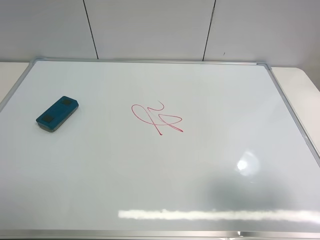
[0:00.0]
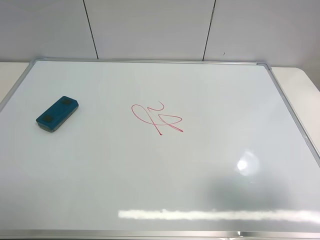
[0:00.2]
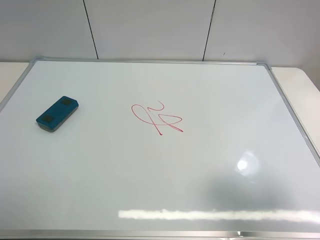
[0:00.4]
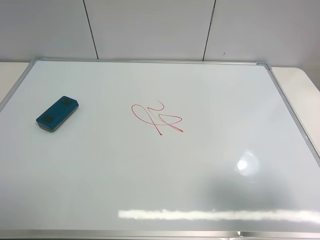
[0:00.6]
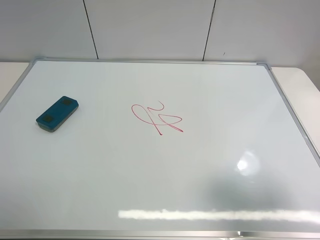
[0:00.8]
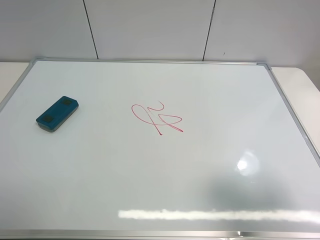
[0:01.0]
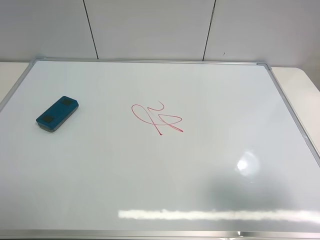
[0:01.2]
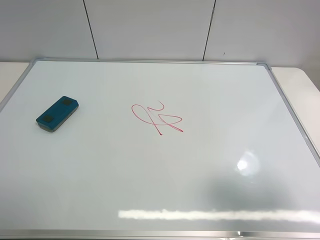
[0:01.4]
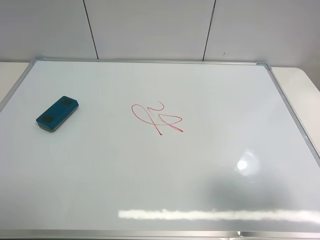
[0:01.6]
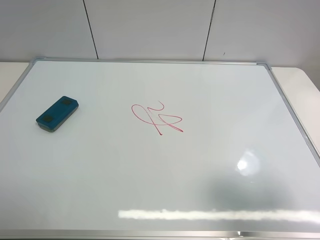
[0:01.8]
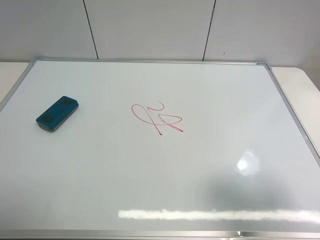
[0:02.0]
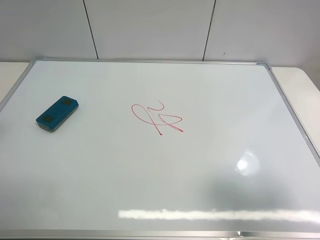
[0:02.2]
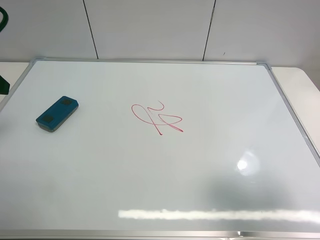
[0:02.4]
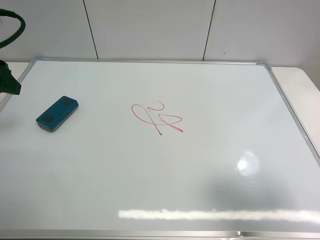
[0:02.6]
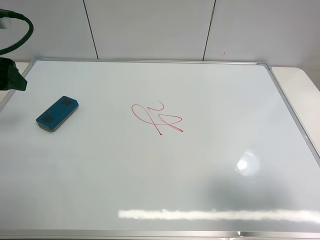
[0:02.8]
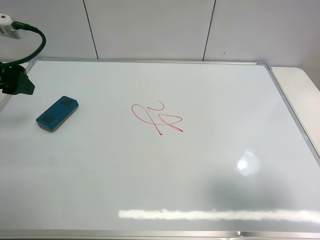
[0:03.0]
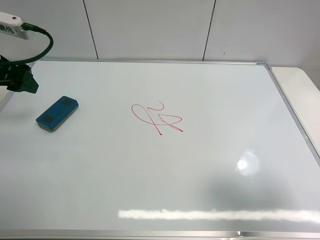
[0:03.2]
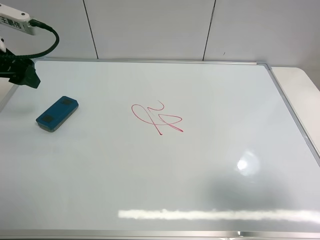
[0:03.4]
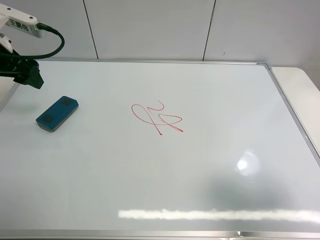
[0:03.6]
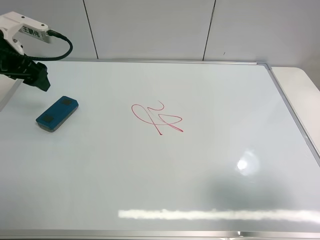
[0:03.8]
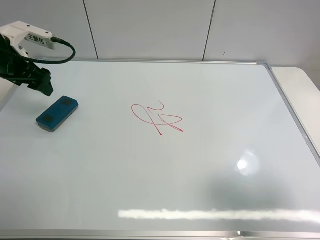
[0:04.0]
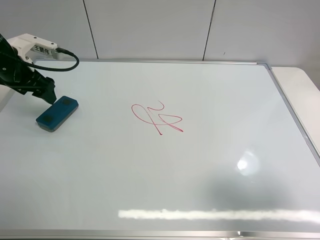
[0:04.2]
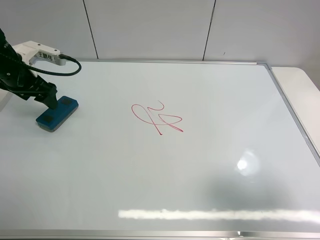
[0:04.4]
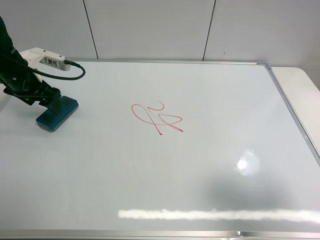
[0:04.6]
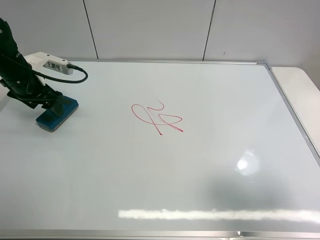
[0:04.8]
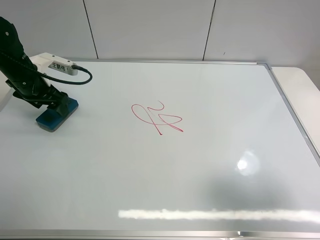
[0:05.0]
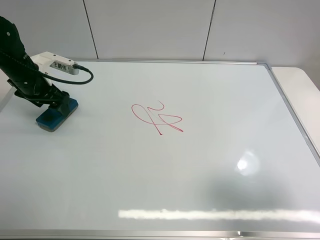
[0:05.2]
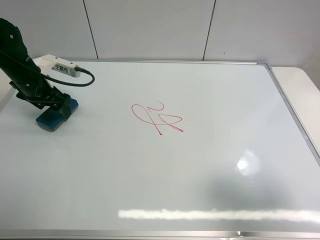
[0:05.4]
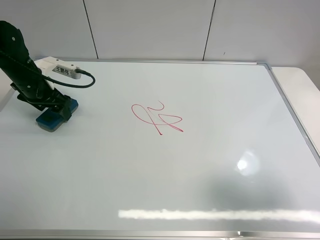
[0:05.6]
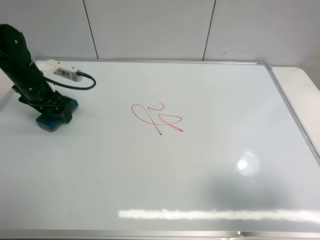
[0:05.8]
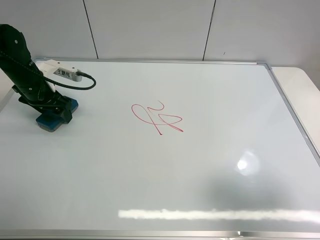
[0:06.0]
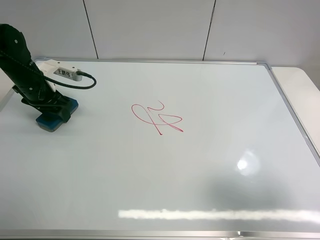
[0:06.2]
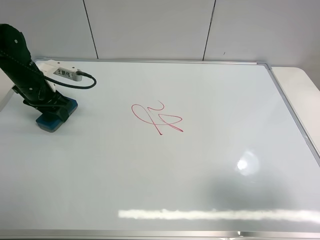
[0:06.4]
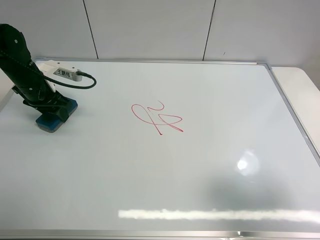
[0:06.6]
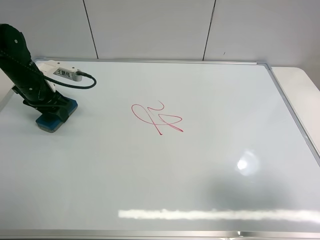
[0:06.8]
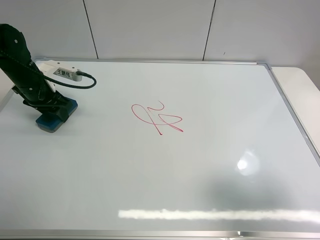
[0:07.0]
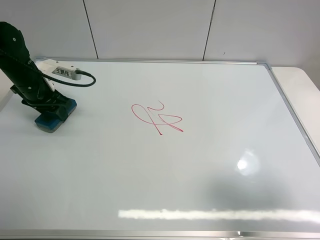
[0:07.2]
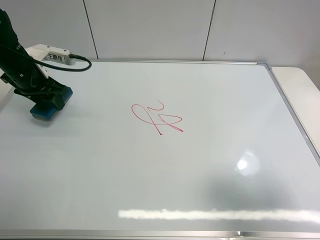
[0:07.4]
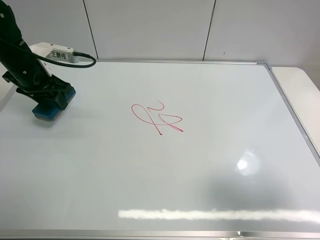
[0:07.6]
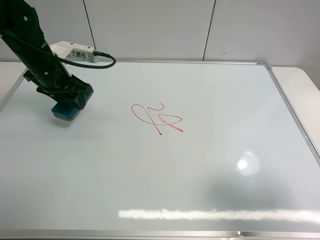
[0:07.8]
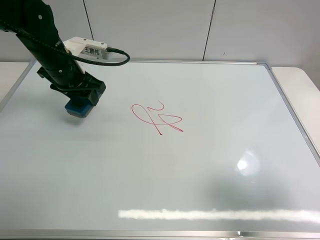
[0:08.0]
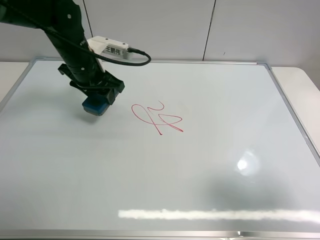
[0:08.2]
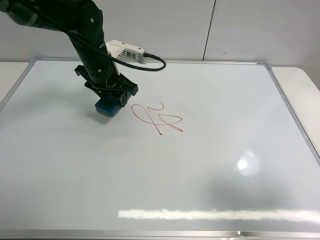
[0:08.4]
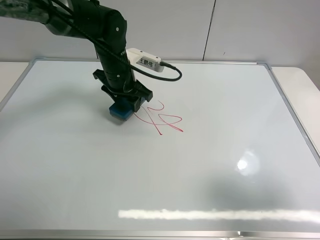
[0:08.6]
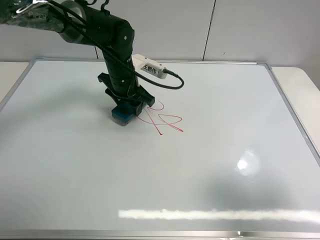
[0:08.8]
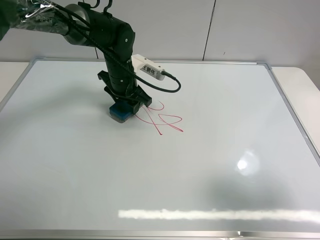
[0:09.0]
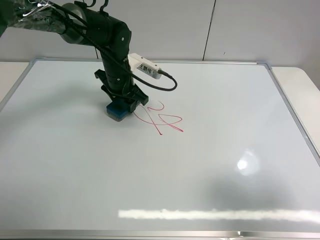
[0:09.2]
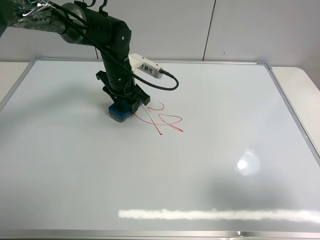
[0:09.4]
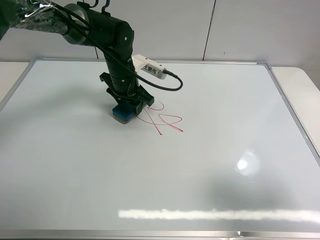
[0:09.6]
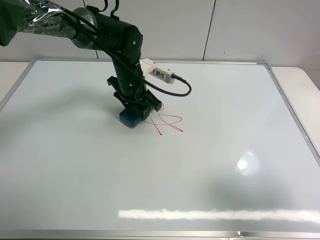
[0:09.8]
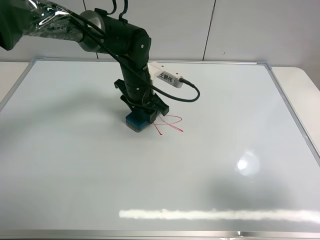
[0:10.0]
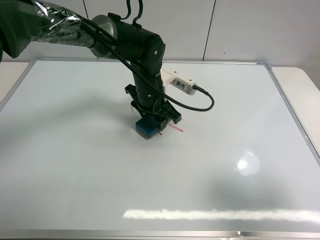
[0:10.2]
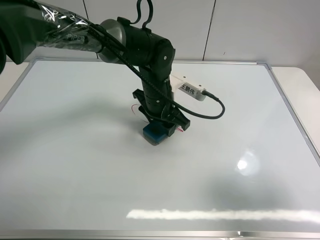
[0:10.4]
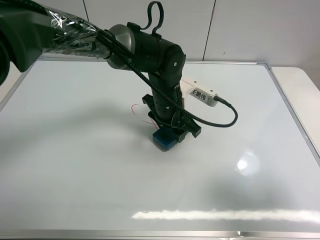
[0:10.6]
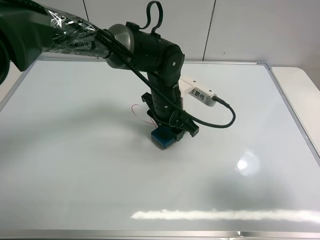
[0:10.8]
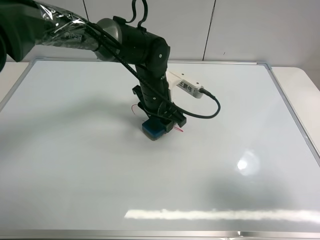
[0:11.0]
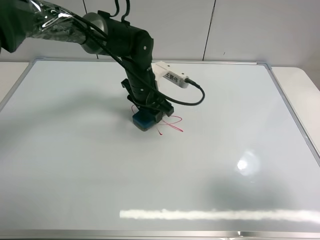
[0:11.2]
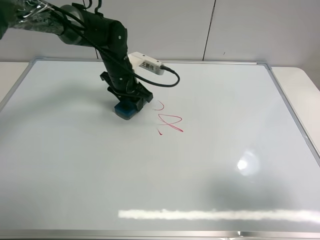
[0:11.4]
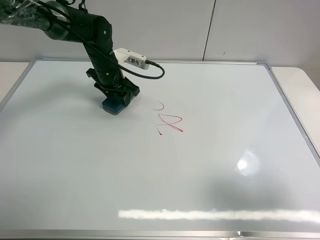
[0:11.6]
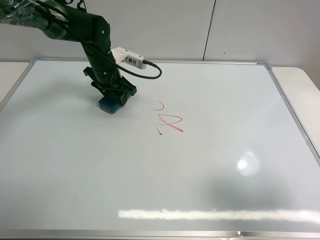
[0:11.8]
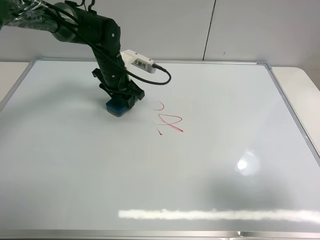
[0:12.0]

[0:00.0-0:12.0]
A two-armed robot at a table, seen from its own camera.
Task of the whole recording: use the left claw to pick up the whiteboard eraser, wipe the notes on the whiteboard clean, and then put them back in place.
Step, 0:00.0 to 0:06.4: Grasp the eraser with the left gripper.
0:01.6 to 0:03.0: The left gripper is displaced forward by some 25 cm.
0:03.0 to 0:04.4: The left gripper is displaced forward and downward by approximately 10 cm.
0:04.4 to 0:06.0: There are only small adjustments of the grippers.
0:06.0 to 0:07.6: The left gripper shifts by about 5 cm, and closes.
0:07.6 to 0:09.0: The left gripper shifts about 20 cm to the right.
0:09.0 to 0:10.4: The left gripper moves to the right and backward, some 10 cm.
0:10.4 to 0:12.0: The left gripper goes roughly 15 cm to the left and forward.

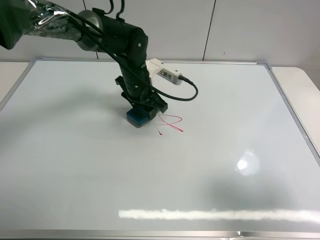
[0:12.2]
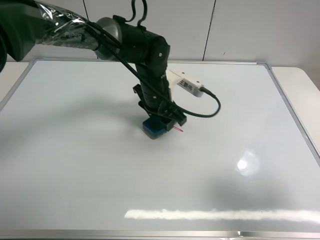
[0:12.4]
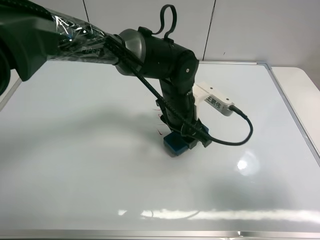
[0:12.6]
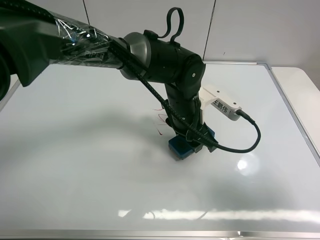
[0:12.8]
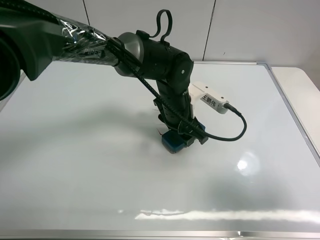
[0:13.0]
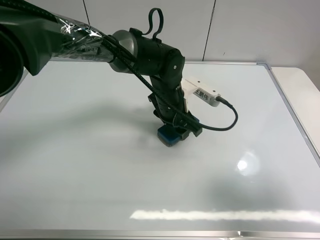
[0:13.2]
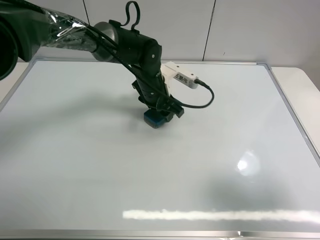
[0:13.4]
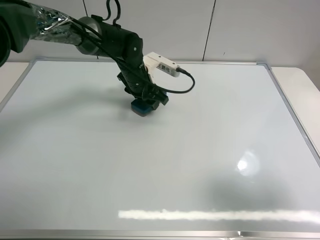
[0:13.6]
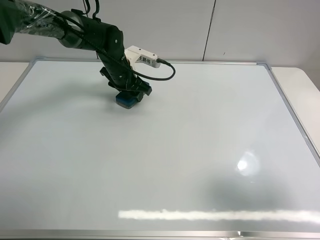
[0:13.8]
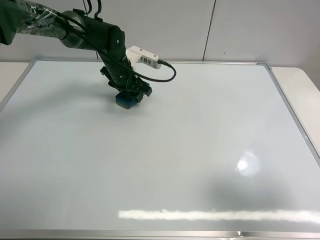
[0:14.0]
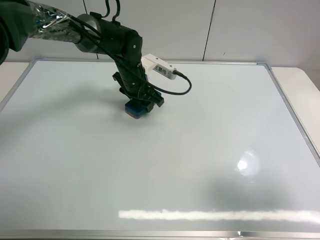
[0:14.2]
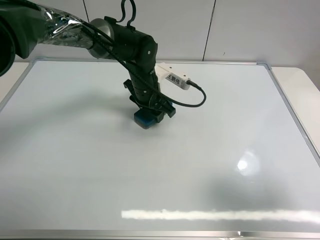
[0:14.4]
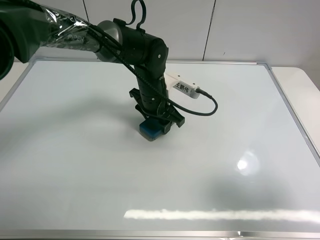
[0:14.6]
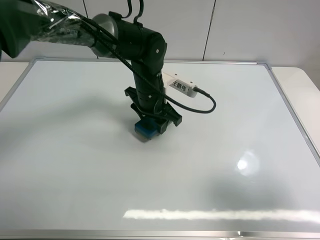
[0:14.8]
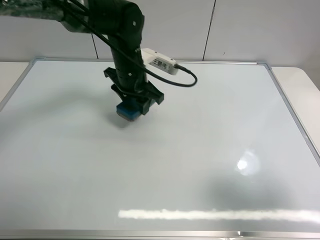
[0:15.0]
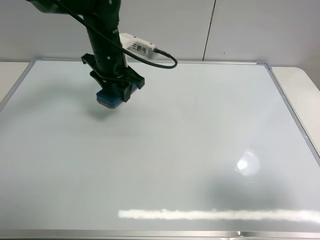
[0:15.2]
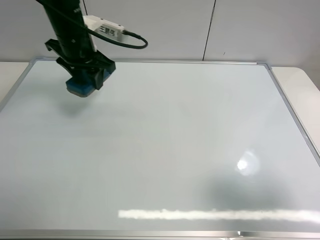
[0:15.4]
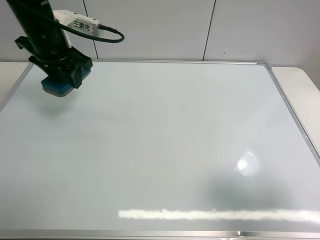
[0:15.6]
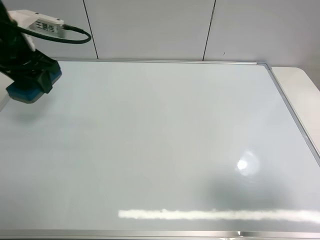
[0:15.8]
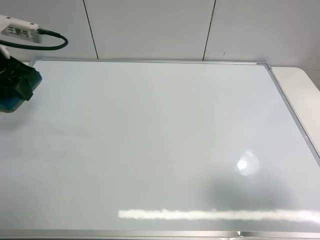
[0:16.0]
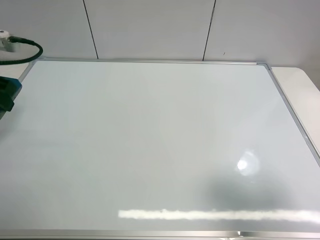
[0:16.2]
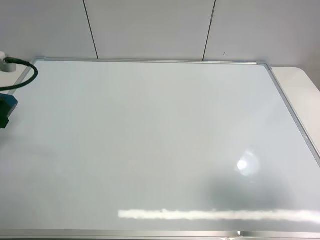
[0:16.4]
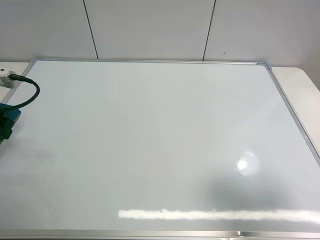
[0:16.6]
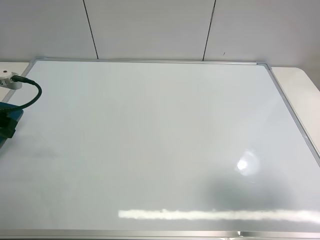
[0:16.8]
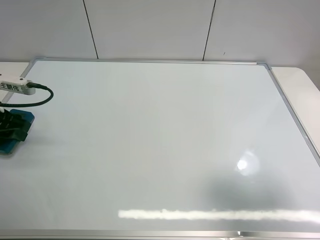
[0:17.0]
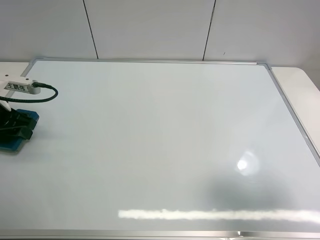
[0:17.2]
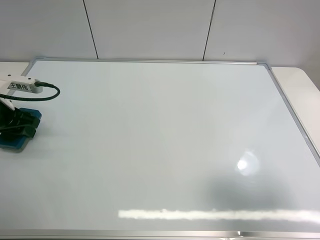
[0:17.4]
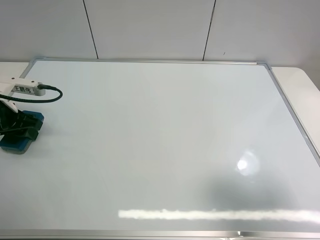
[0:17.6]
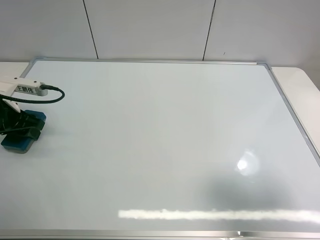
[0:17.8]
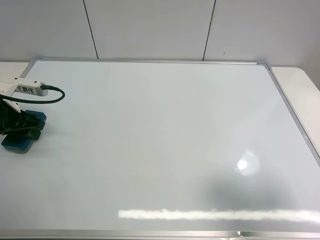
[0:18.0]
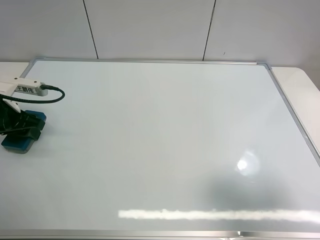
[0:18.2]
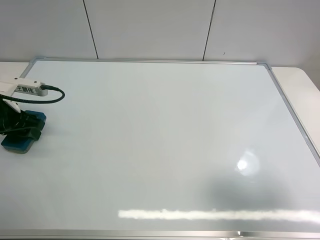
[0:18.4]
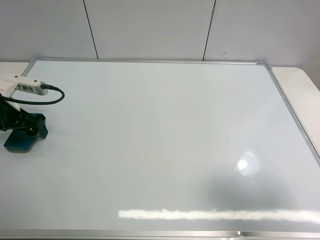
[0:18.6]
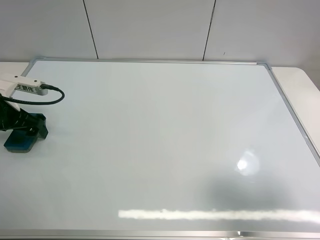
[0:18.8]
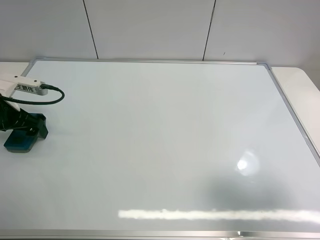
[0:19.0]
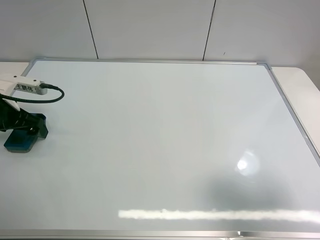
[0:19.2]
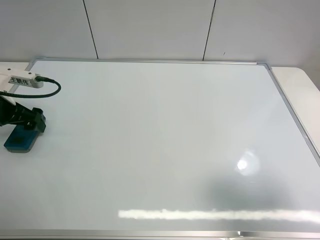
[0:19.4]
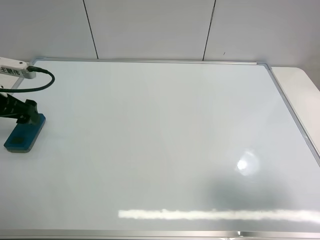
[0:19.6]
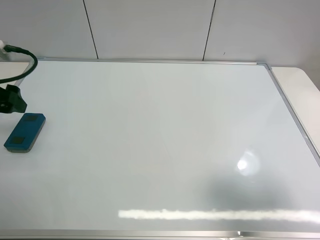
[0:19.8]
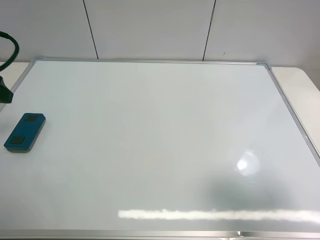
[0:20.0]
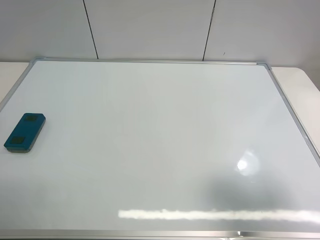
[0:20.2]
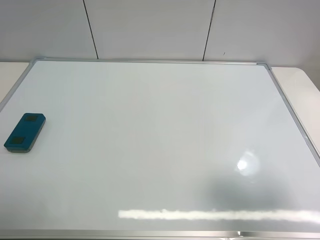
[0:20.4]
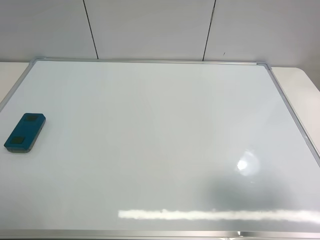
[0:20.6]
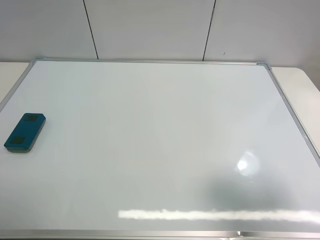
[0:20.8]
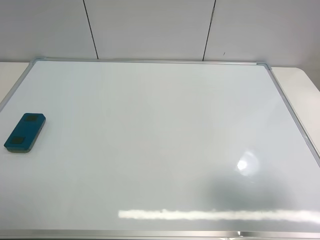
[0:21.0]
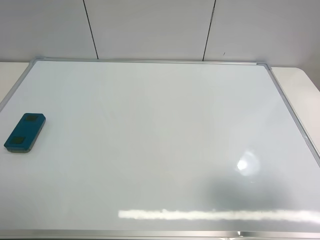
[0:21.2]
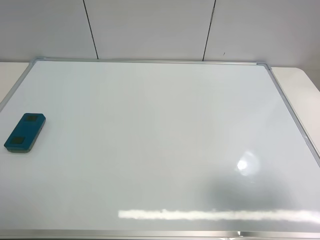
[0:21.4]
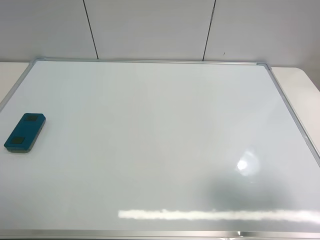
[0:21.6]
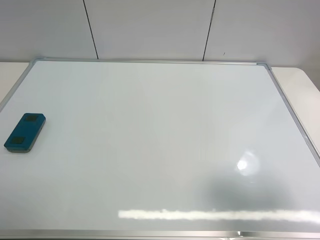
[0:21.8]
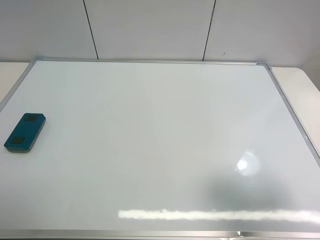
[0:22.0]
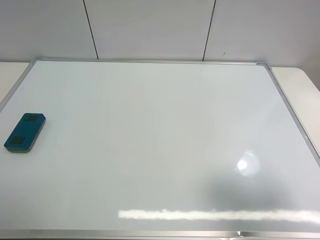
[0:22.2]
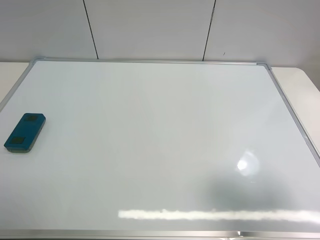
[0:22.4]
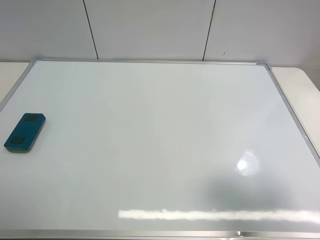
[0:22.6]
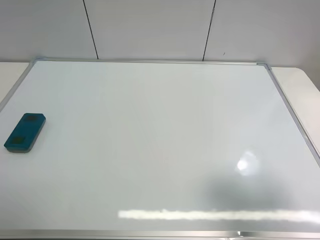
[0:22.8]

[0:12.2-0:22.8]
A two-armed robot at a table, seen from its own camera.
Task of the whole recording: use the left claw to pick up the whiteboard eraser, wipe the notes on the whiteboard clean, and then put them back in place.
Step, 0:12.2 to 0:14.8: Grasp the eraser and wipe the blackboard with the left gripper.
Step, 0:15.0 to 0:19.6: Place the eraser with the left gripper.
0:12.2 to 0:13.8: The left gripper is displaced to the left and forward by approximately 10 cm.
0:13.8 to 0:15.2: The left gripper is displaced upward and backward by about 10 cm, and goes to the right and returns, some 10 cm each way.
0:15.2 to 0:16.8: The left gripper travels to the left and backward by about 30 cm.
0:16.8 to 0:18.2: The left gripper travels downward by some 5 cm.
0:18.2 to 0:19.8: The left gripper is displaced upward by roughly 10 cm, and opens up.
0:19.8 to 0:21.2: The left gripper is displaced backward and upward by roughly 25 cm.
